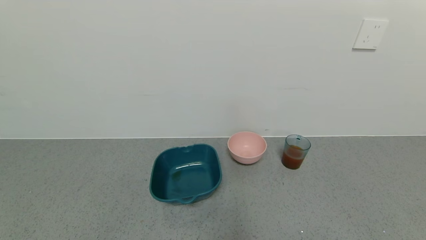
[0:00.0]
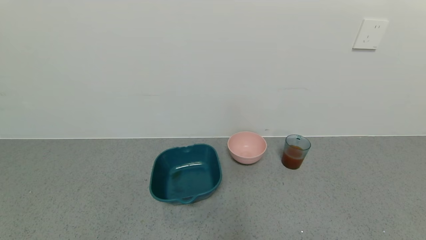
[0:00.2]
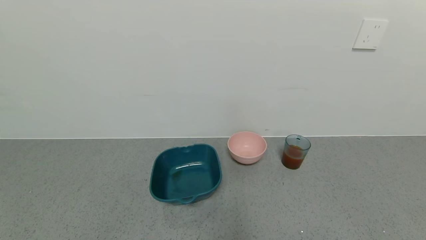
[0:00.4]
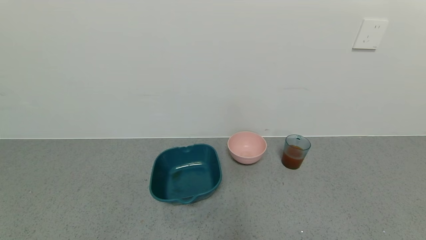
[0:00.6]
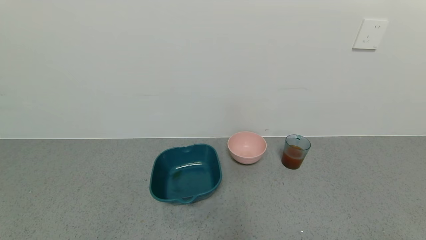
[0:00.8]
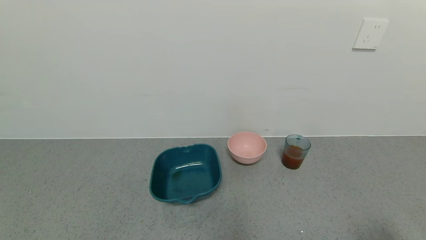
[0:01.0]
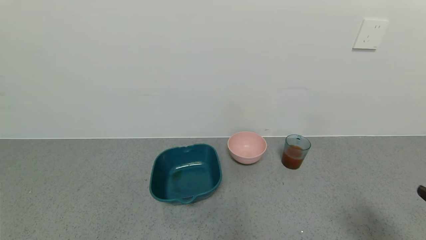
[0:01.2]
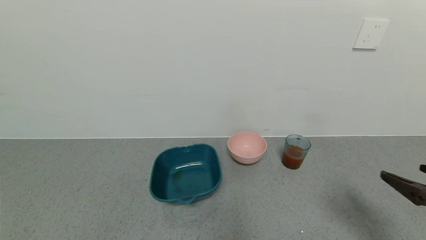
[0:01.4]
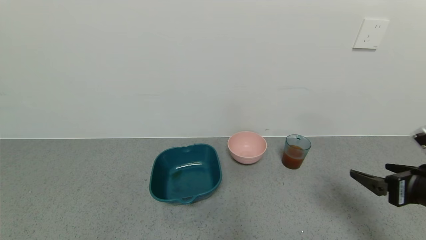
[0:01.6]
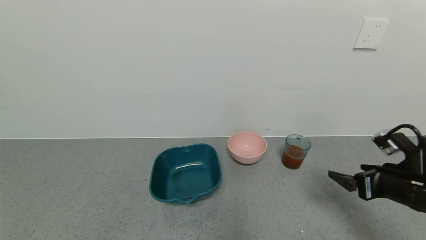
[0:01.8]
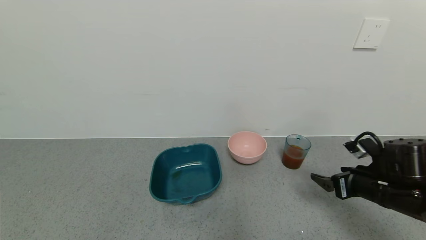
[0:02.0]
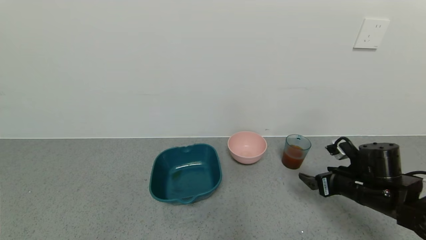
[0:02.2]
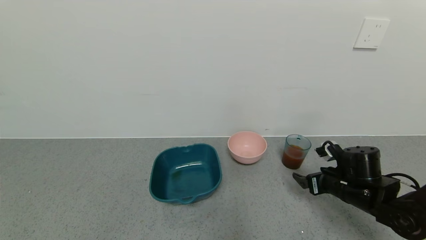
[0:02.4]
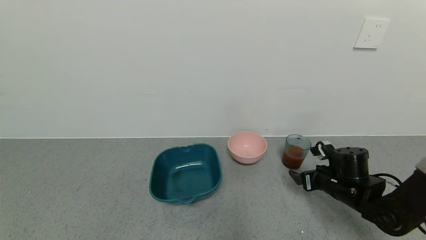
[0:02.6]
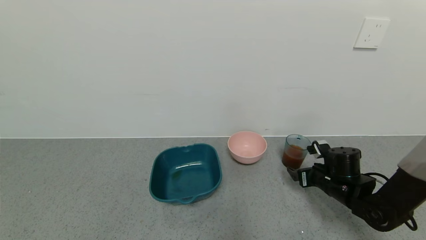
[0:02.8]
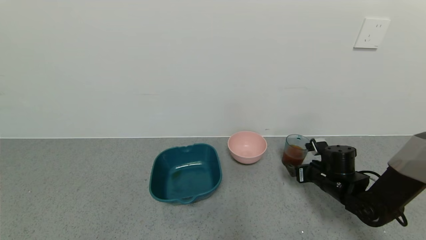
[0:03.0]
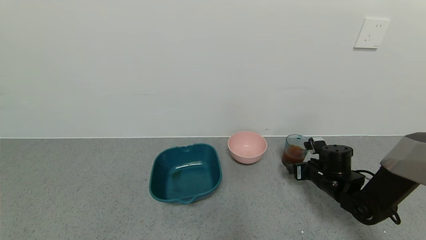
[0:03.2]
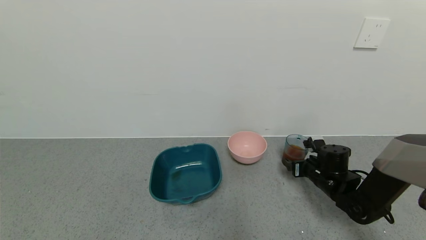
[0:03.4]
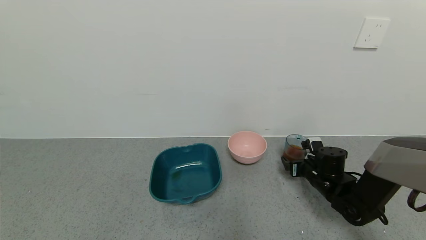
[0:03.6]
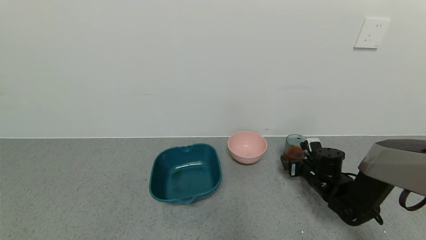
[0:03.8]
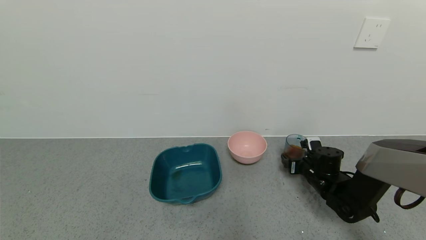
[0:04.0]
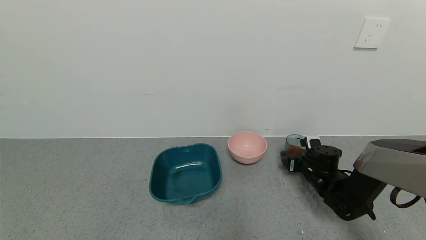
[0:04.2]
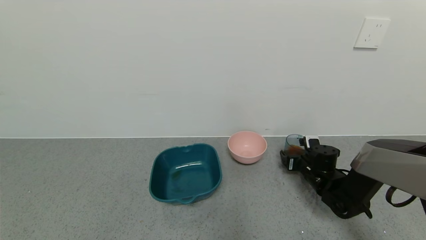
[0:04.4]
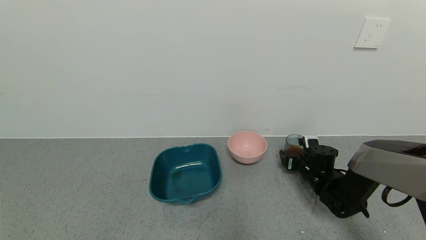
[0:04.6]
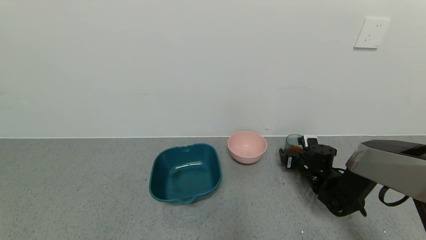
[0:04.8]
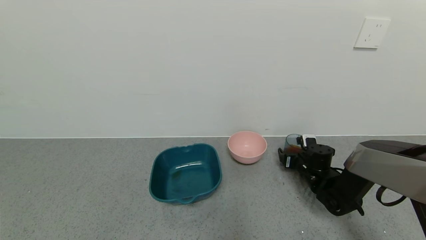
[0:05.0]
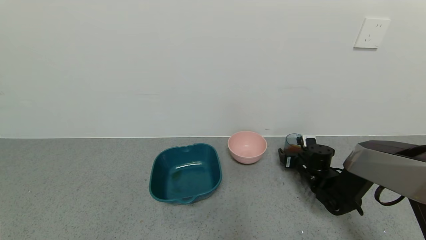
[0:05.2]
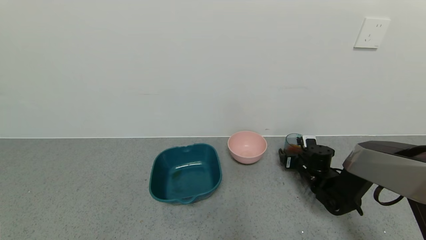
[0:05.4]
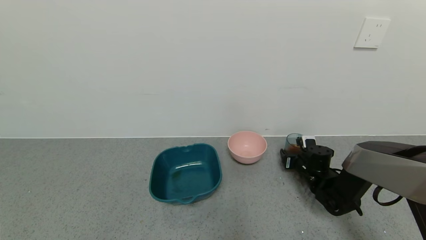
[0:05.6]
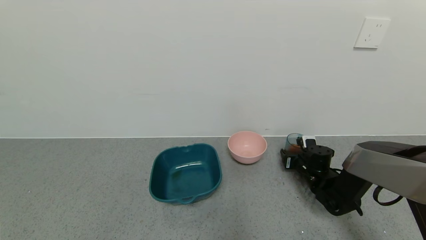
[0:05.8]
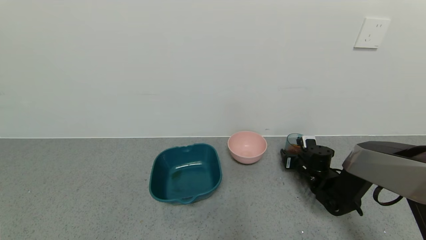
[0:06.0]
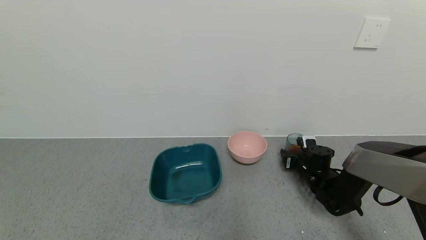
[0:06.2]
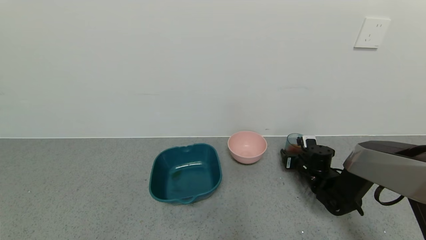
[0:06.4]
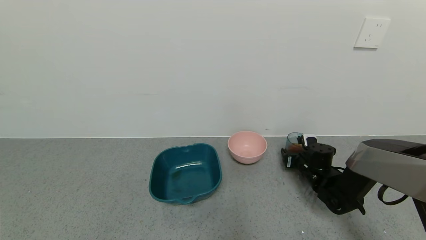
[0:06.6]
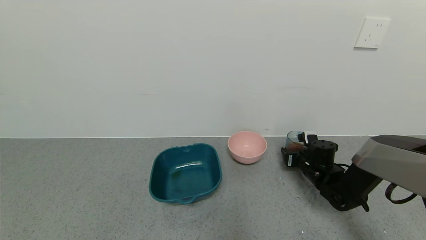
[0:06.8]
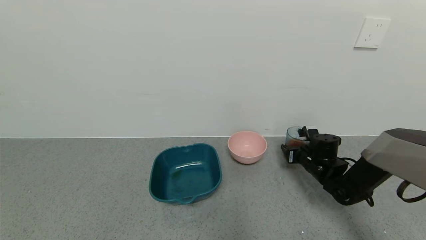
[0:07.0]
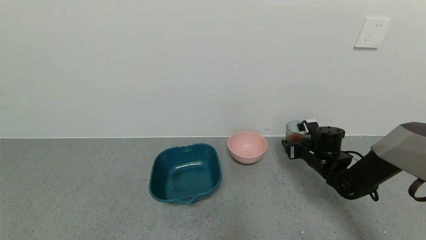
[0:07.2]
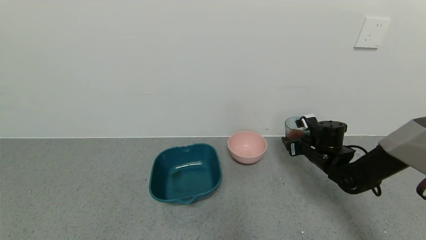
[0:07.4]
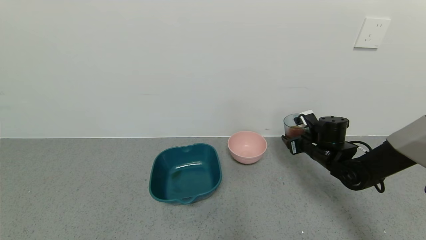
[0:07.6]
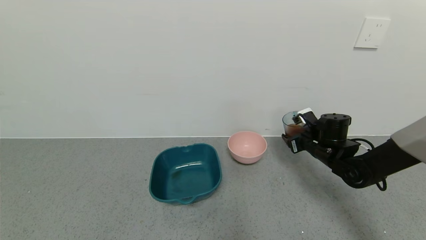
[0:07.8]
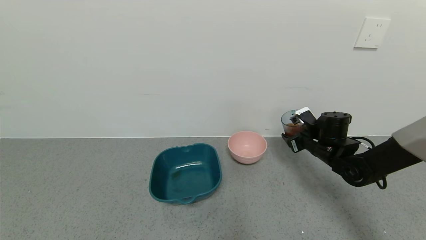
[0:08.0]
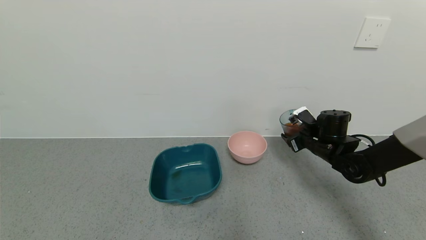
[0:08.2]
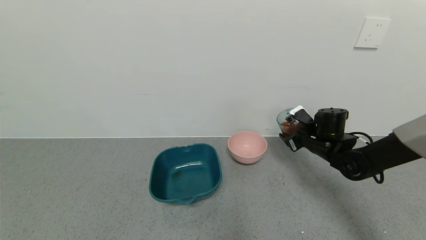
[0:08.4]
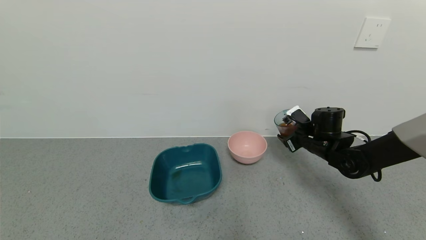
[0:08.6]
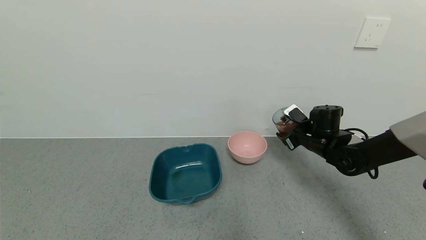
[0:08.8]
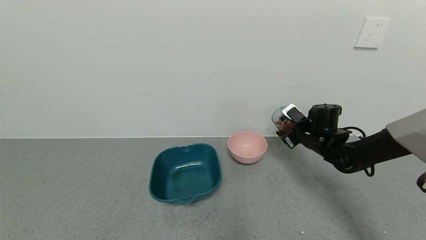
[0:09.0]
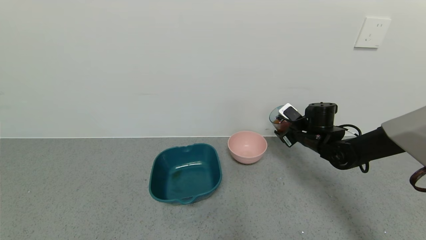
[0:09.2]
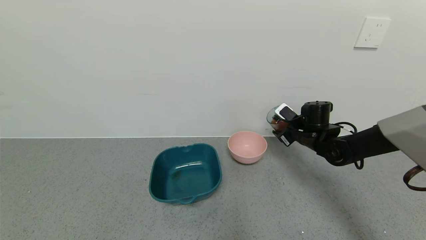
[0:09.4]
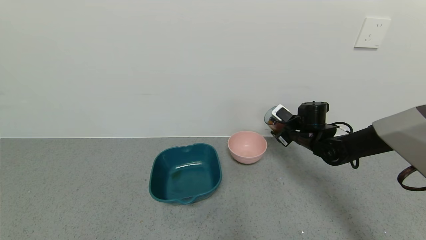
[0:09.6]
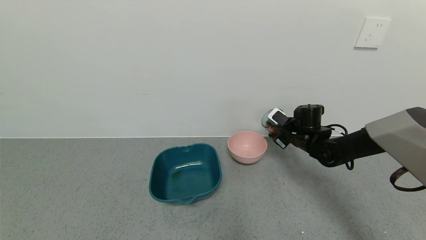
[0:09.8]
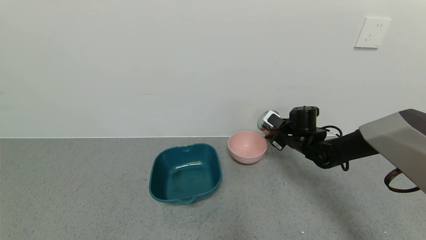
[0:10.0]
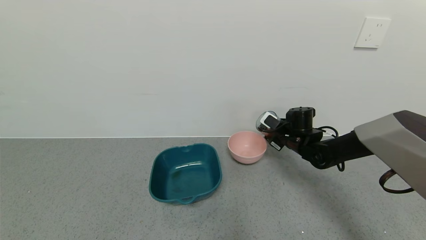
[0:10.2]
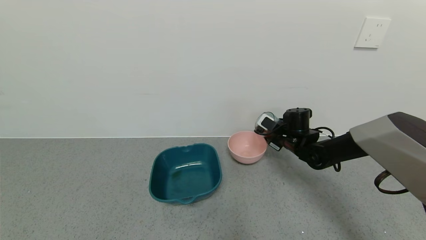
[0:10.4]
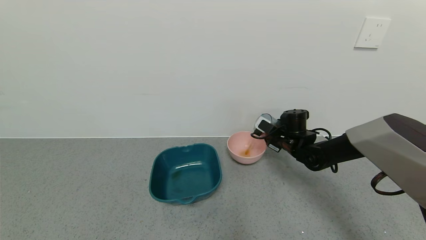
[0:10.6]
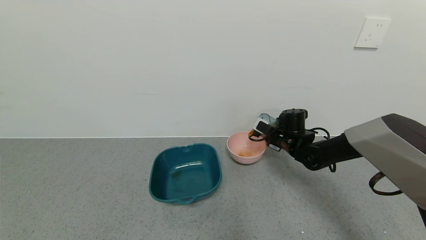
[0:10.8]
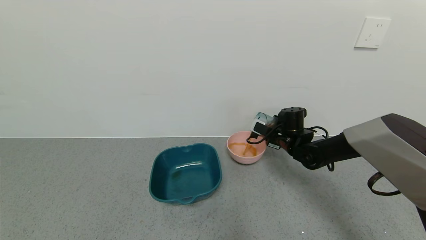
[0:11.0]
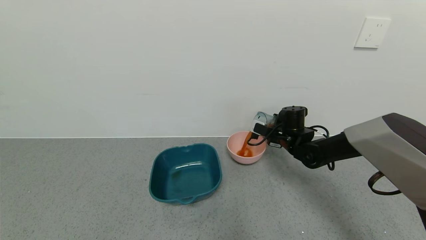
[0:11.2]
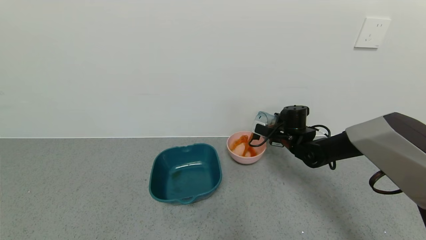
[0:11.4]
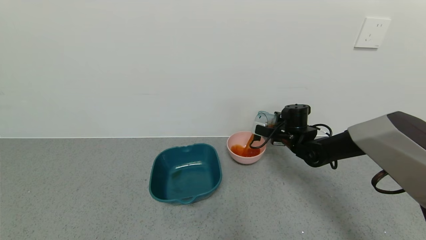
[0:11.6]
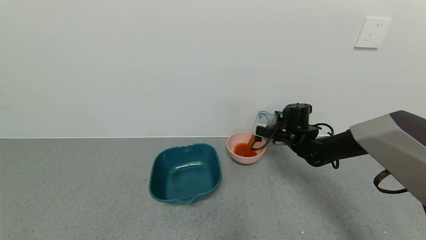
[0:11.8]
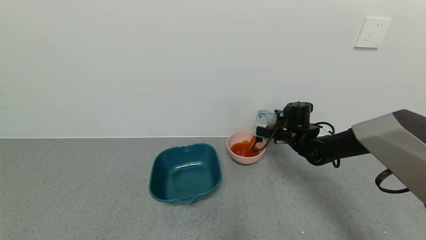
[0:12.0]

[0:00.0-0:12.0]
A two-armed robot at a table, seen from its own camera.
Task of the whole recording: use a gripper to pick up the cup and pour the liquid into a bowl or tray.
Step, 0:05.8 to 0:10.2: Pick up blue cup filled with tea with right gripper.
0:00.0 to 0:01.6: The right gripper heads forward and upward, covering roughly 25 cm.
0:01.6 to 0:03.0: The right gripper moves forward, downward and to the left, approximately 20 cm.
0:03.0 to 0:04.4: The right gripper ends up about 5 cm from where it was.
0:04.4 to 0:06.0: The right gripper closes.
0:06.0 to 0:07.6: The right gripper goes some 10 cm upward.
0:09.0 to 0:10.4: The right gripper ends up about 5 cm from where it was.

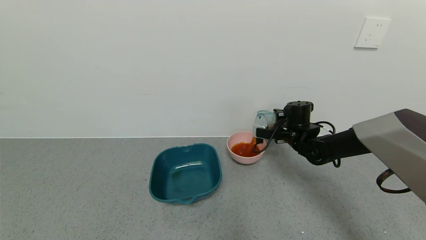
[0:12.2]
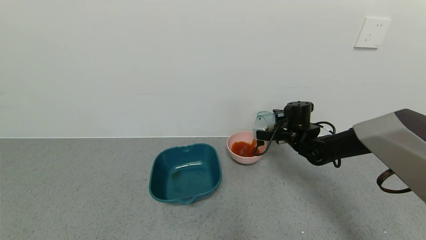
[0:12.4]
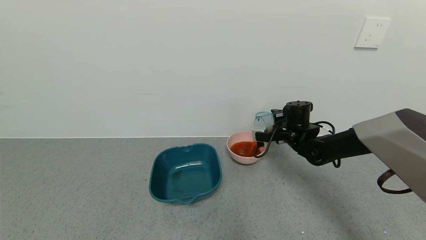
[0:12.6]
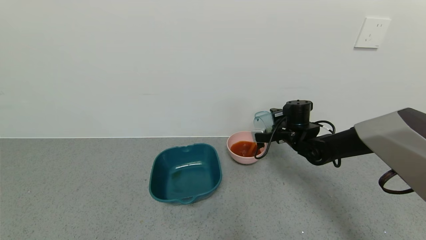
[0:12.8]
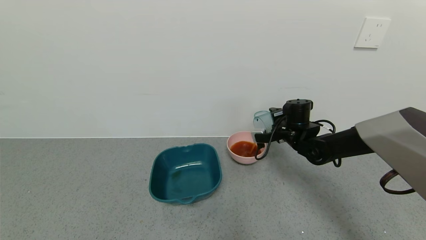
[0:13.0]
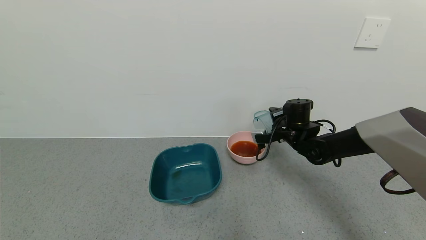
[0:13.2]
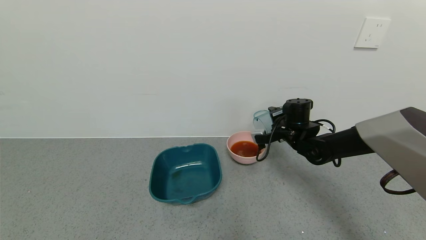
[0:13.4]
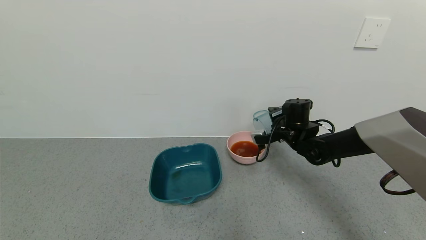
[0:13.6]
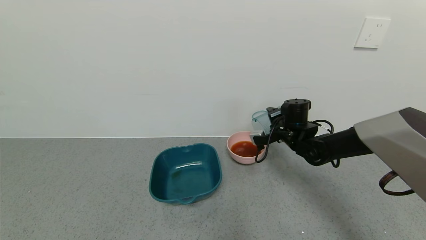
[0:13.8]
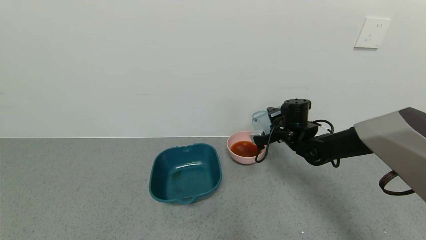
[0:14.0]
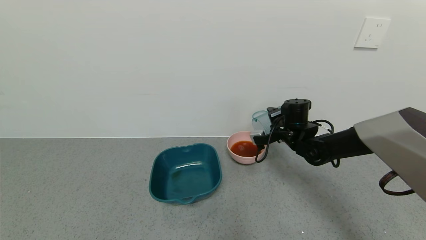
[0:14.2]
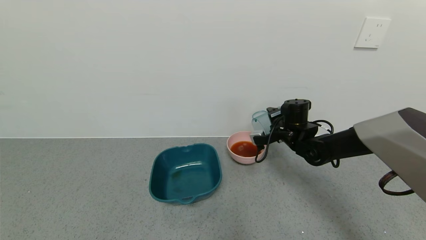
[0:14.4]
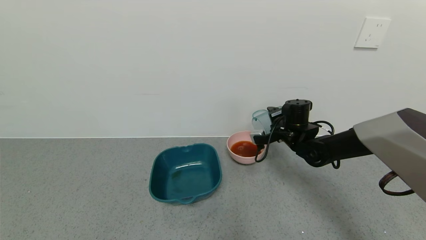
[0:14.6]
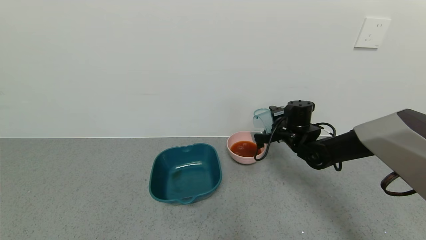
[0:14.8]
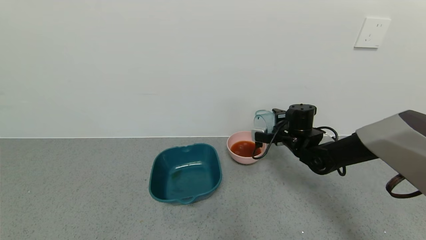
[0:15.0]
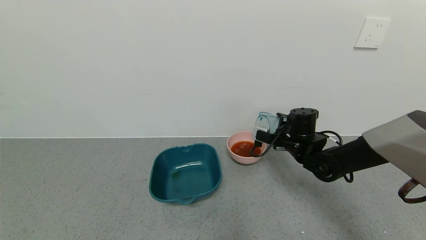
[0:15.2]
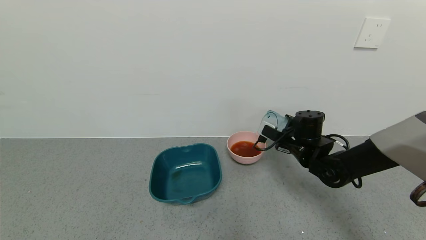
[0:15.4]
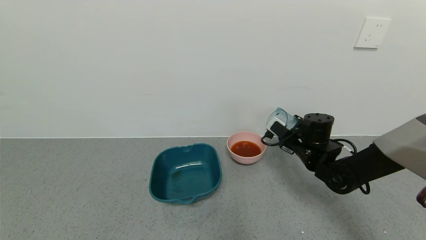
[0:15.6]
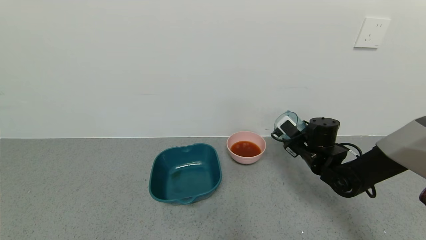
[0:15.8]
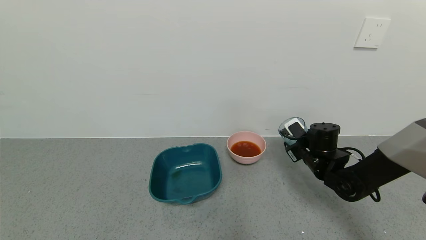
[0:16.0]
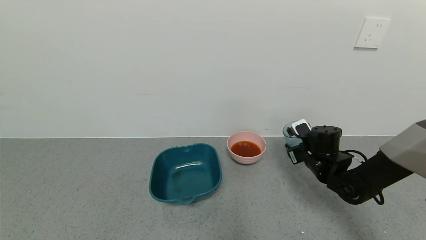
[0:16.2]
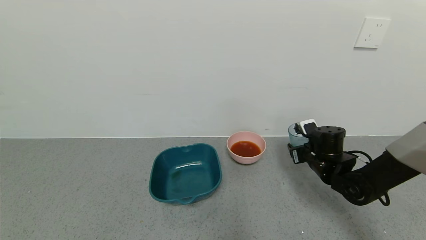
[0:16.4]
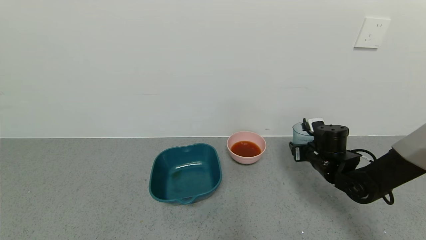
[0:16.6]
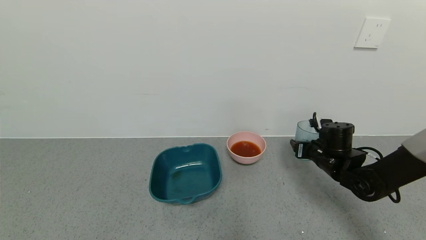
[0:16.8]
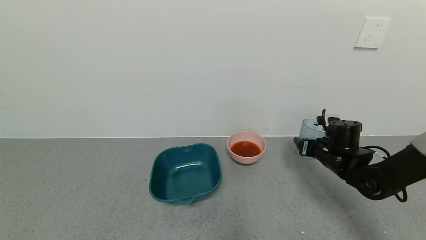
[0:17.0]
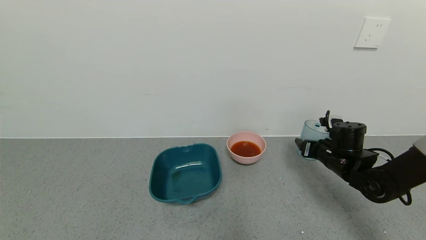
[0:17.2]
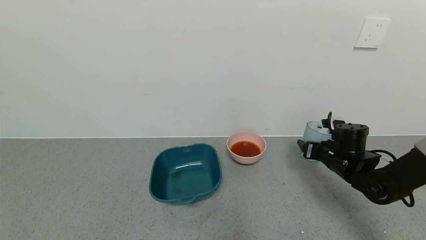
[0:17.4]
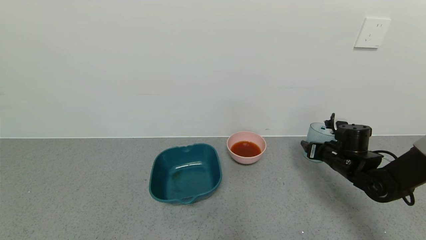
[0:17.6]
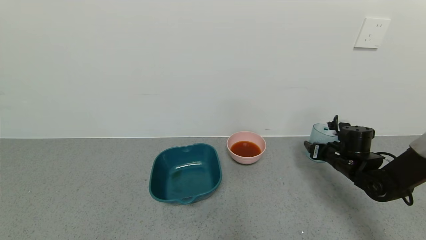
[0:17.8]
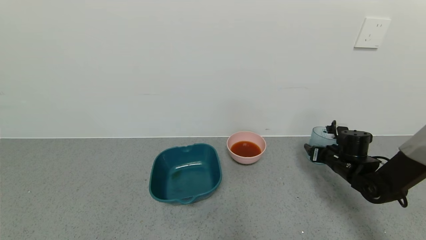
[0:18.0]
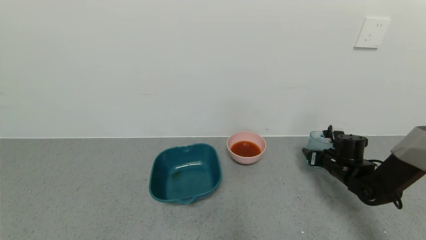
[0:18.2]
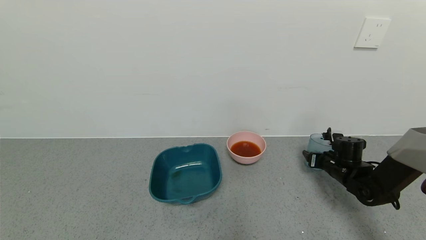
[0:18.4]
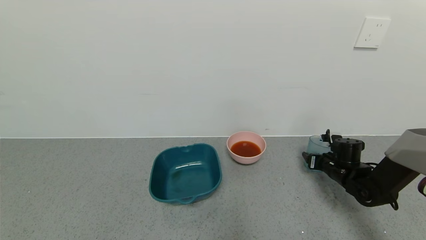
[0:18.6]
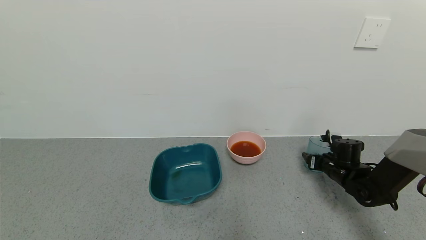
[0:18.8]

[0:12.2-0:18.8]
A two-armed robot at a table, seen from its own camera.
Task of the whole recording: use a gripper to pick up the cup and pour the liquid into a bowl or tray.
0:12.2 to 0:13.8: The grippers move only a little.
0:13.8 to 0:15.4: The right gripper shifts by roughly 5 cm.
0:15.4 to 0:17.2: The right gripper goes approximately 10 cm to the right.
0:17.2 to 0:18.8: The right gripper shifts roughly 5 cm downward.
